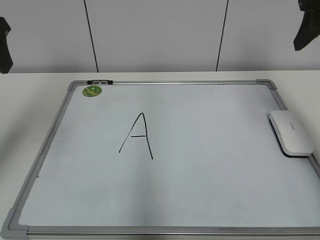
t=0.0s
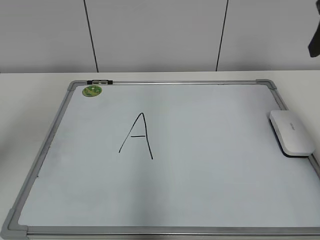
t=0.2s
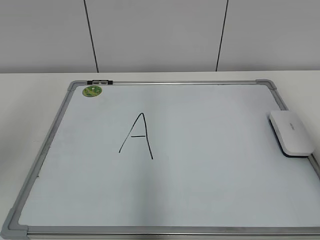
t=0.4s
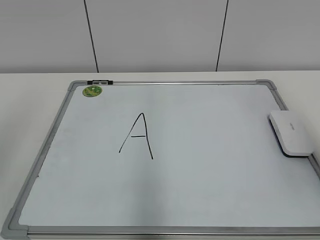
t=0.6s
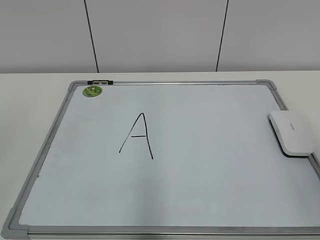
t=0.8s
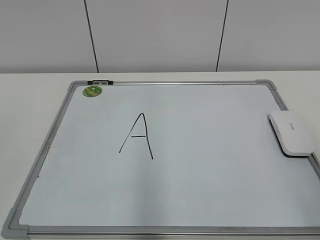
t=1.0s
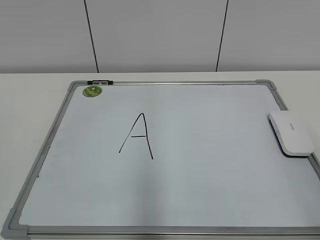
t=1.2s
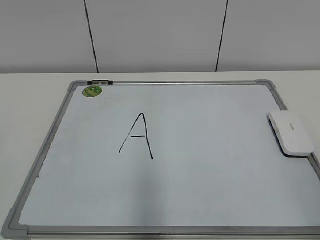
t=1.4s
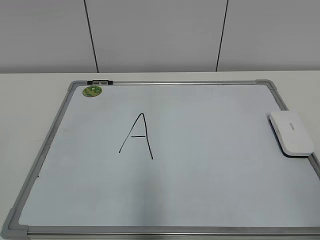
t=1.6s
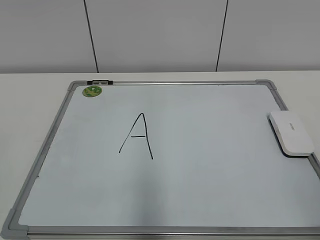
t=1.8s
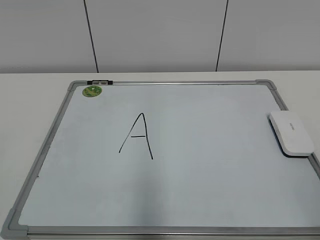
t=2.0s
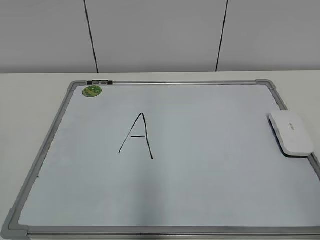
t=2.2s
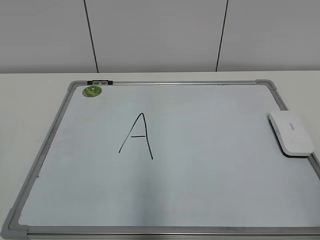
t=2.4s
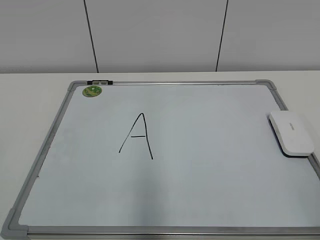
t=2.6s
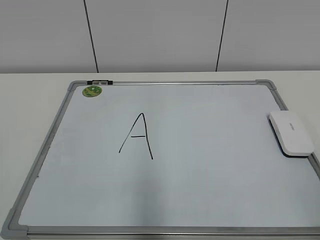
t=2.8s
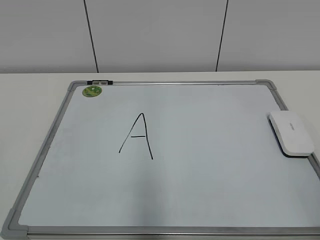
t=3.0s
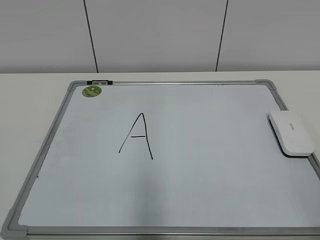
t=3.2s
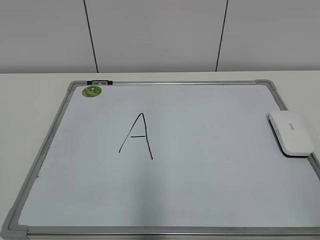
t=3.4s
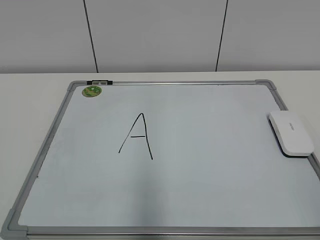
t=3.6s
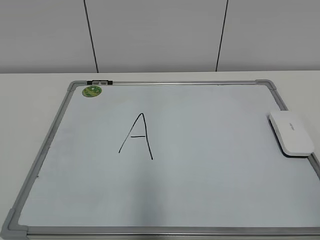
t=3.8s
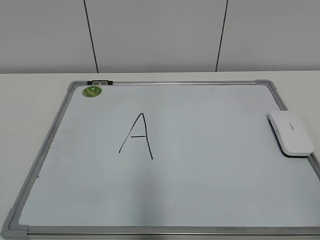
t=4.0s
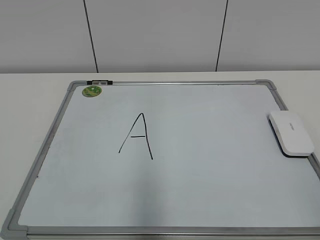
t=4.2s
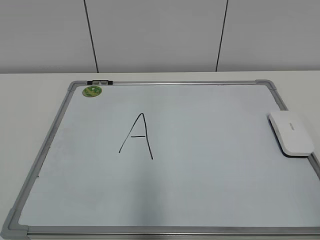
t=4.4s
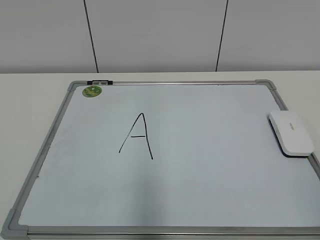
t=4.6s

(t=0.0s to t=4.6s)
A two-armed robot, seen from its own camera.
Task of the whole recording: pick up the eraser on the blackboard and erase the letter "a".
t=0.0s - t=1.6s: The grippers both shift backward by roughly 30 cm.
t=1.6s - t=3.0s: The two grippers keep their place.

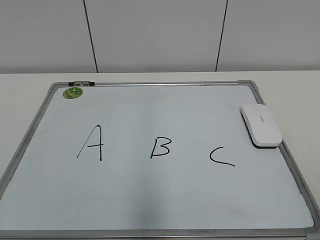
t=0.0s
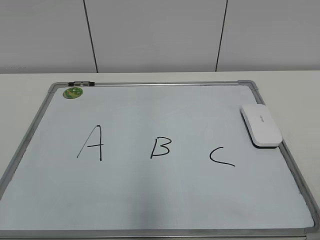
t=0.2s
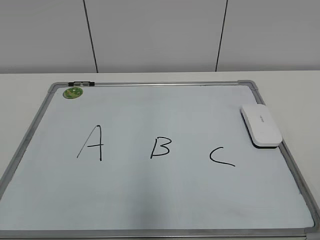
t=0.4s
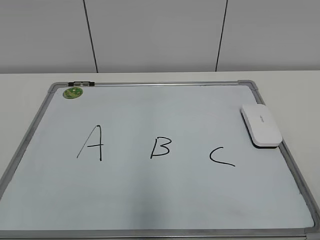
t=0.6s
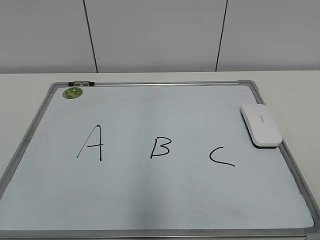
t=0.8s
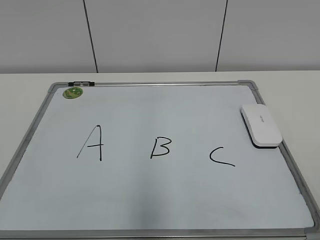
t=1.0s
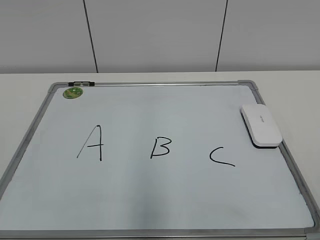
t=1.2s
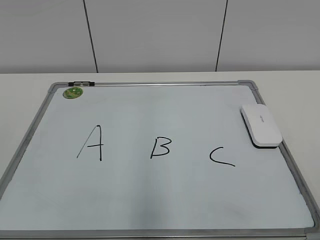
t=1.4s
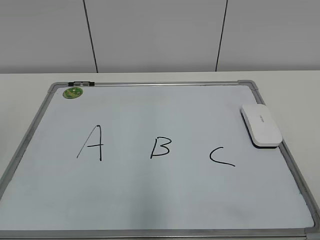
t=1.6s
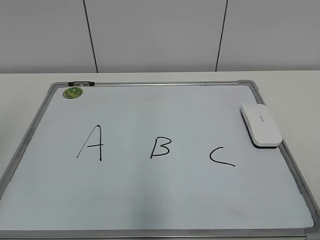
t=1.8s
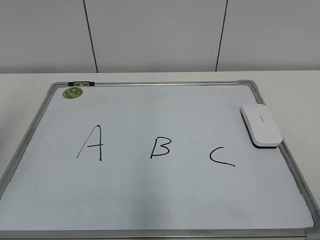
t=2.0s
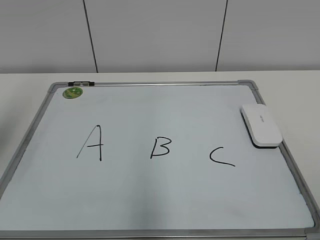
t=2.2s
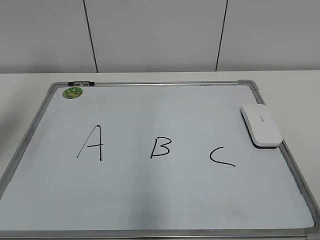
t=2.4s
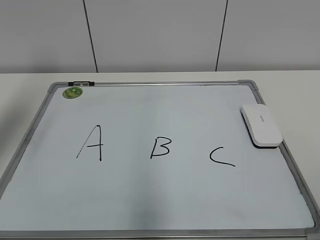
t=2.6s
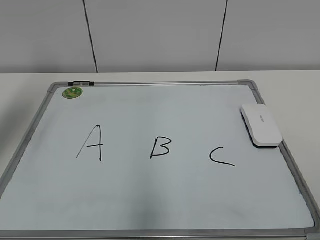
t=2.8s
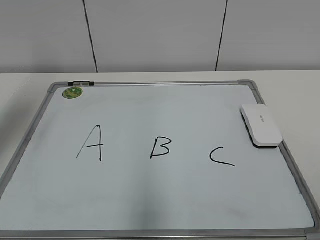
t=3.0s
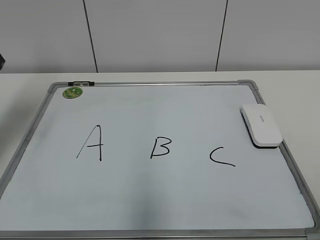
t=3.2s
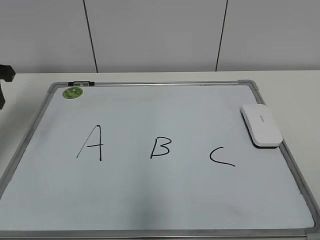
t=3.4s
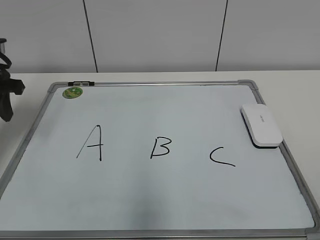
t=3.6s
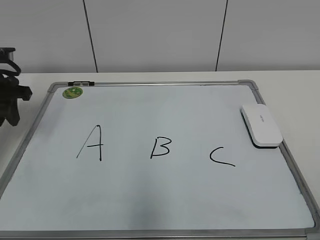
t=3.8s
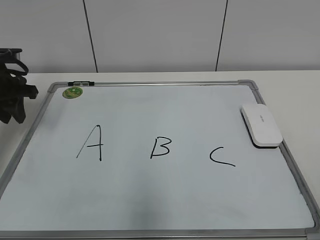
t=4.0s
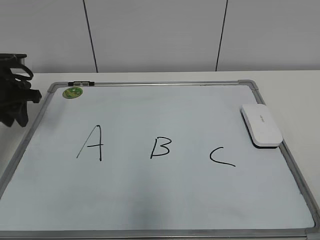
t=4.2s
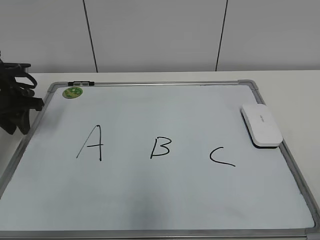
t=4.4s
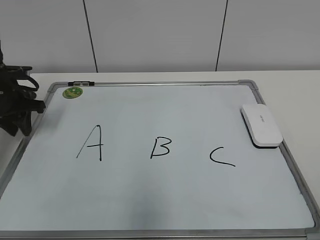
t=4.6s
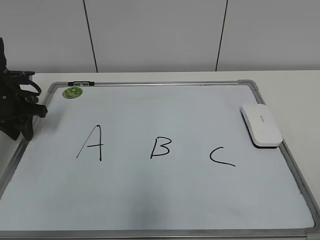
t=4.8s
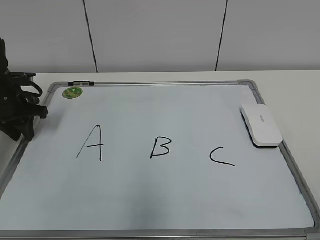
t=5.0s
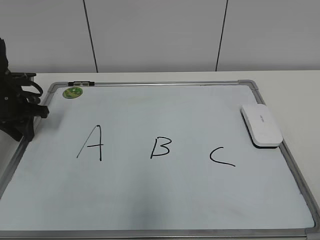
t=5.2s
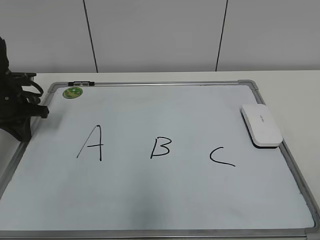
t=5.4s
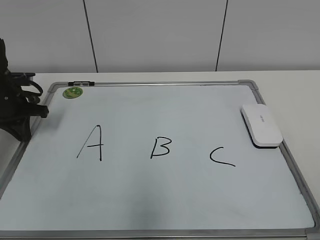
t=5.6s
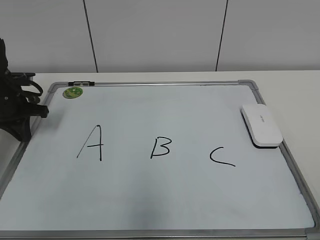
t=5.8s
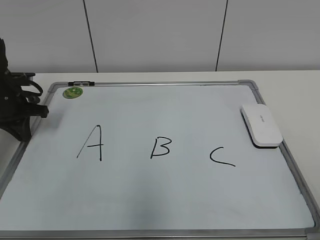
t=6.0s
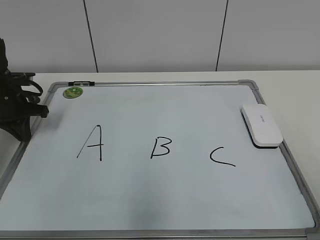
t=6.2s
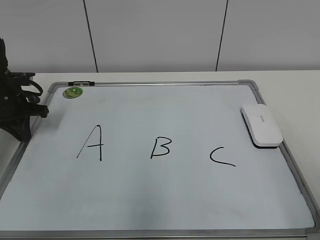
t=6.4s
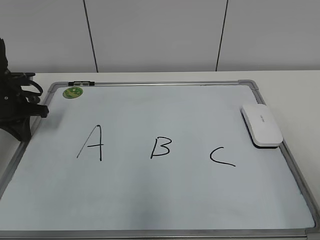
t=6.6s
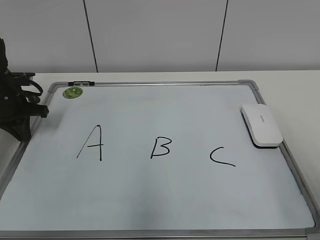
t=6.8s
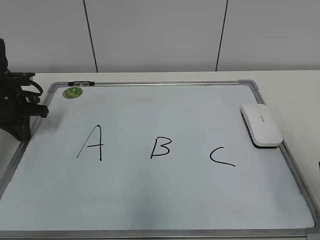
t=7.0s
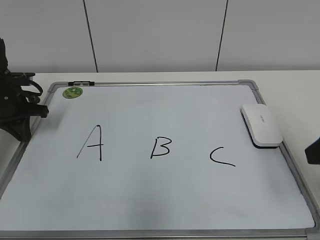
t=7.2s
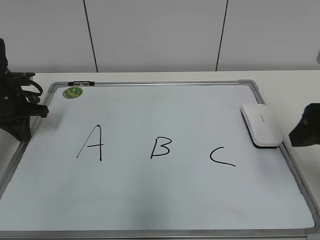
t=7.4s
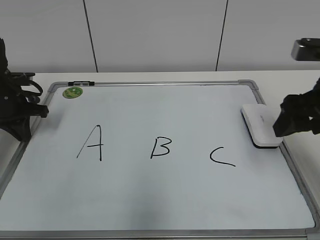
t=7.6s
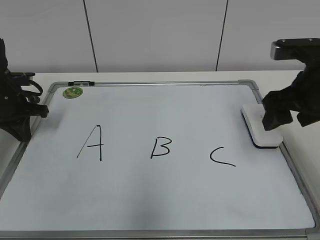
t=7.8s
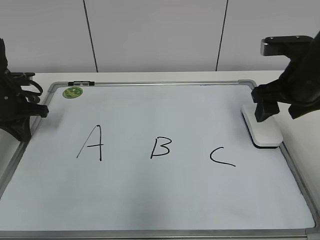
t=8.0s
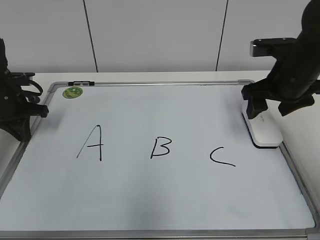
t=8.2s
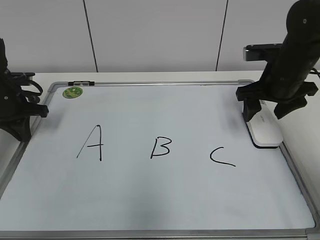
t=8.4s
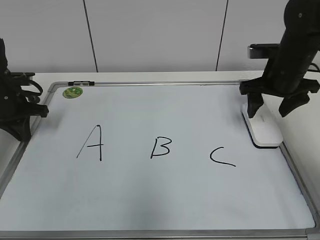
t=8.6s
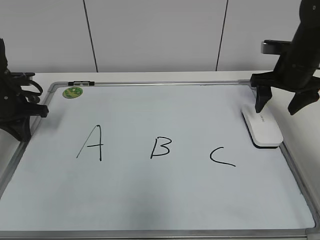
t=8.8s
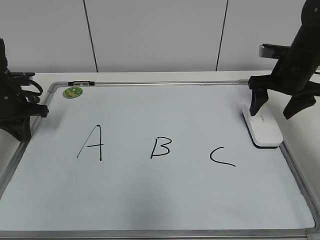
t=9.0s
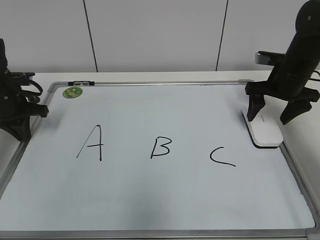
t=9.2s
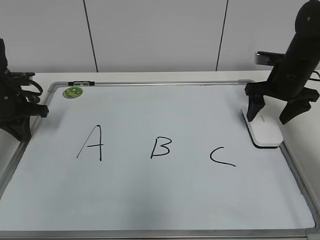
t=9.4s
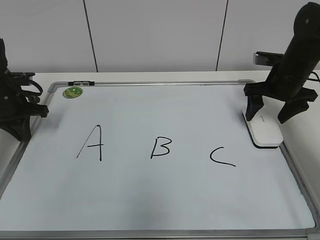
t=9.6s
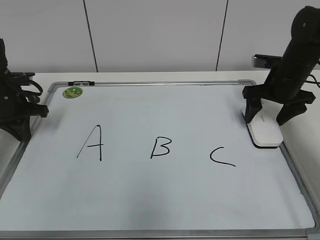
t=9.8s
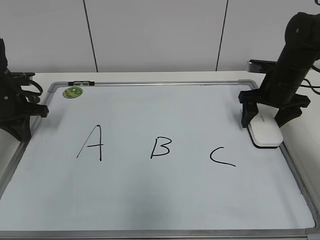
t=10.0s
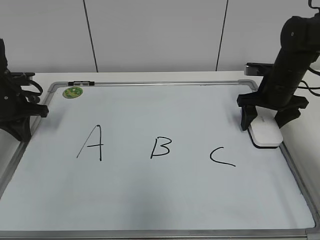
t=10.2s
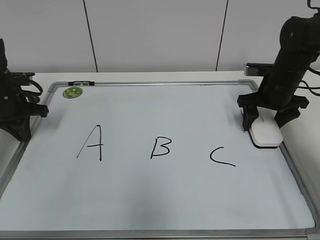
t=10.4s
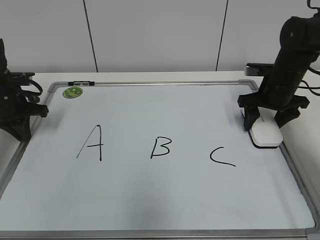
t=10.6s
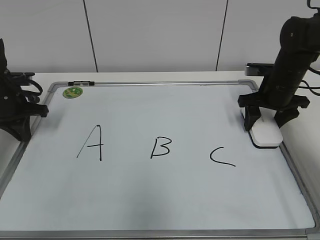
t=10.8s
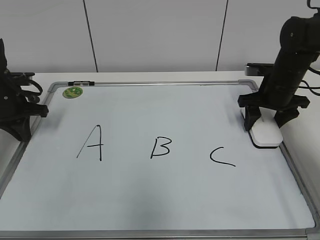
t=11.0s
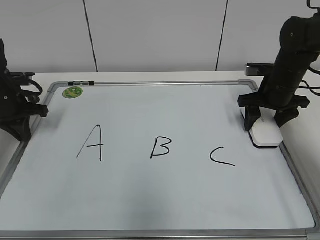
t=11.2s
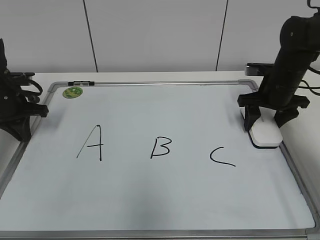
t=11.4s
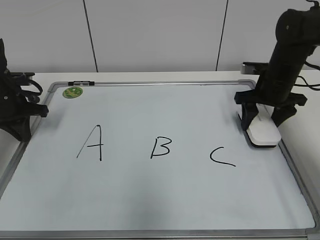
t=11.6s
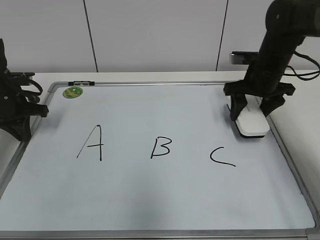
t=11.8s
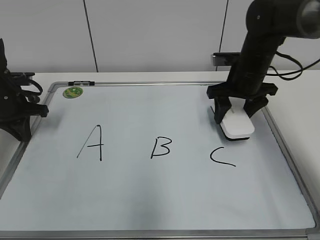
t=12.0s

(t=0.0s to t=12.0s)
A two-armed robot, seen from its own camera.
Task of the whole recording: pick up the eraser on the blackboard and erase the letter "B".
Step, t=0.0s - t=5.4s: Hold the drawing board steady with your left hand.
Step, t=5.6s - t=11.2s: Grab the eraser with your right hand.
t=1.6s - t=3.0s: The left gripper goes about 25 cm forward.
t=3.0s - t=4.4s: The left gripper shifts some 15 cm downward and forward.
t=4.4s - t=6.0s: The left gripper closes up.
t=6.0s - t=7.6s: The right gripper travels forward by some 25 cm.
t=7.6s - t=9.0s: The right gripper goes about 15 cm forward, and opens.
t=9.0s - t=10.4s: The right gripper closes up.
t=10.4s - t=12.0s: The right gripper heads to the left, covering approximately 5 cm, and closes.

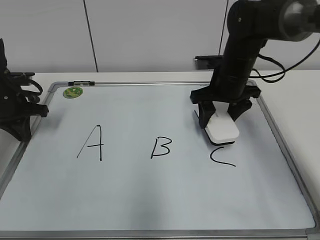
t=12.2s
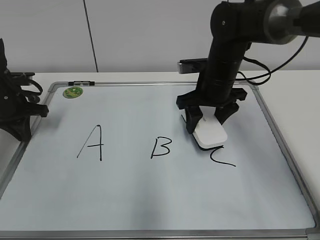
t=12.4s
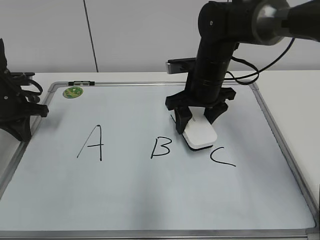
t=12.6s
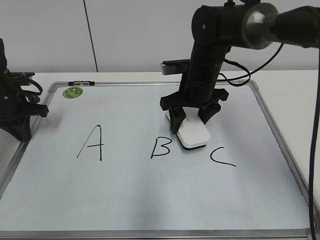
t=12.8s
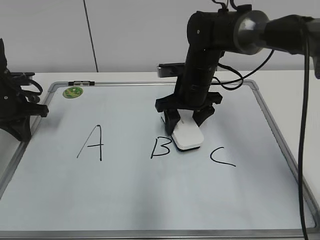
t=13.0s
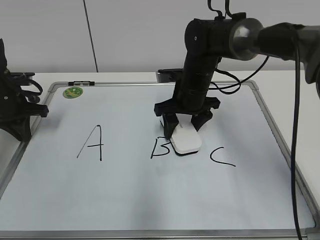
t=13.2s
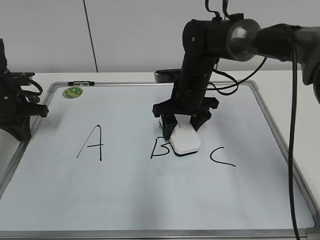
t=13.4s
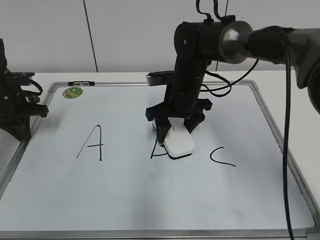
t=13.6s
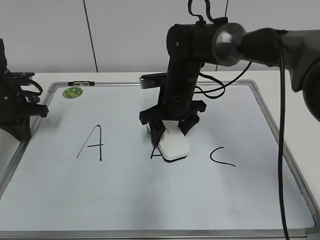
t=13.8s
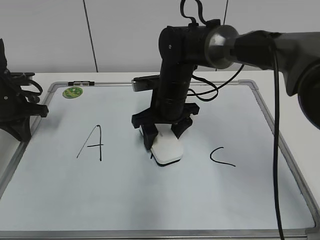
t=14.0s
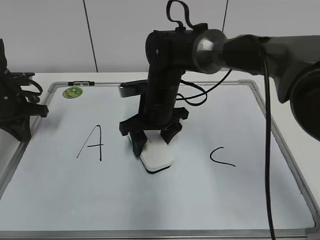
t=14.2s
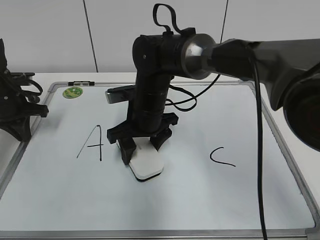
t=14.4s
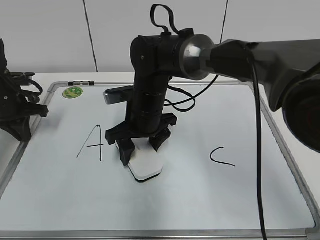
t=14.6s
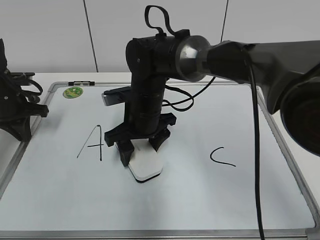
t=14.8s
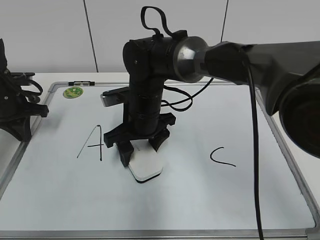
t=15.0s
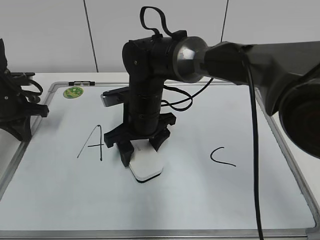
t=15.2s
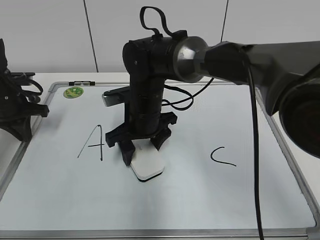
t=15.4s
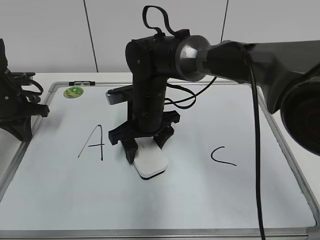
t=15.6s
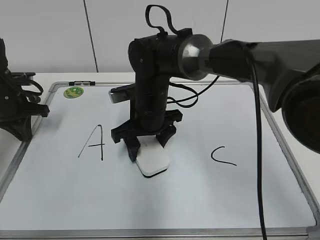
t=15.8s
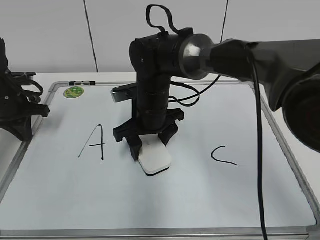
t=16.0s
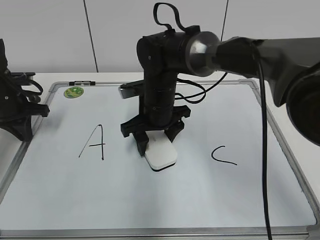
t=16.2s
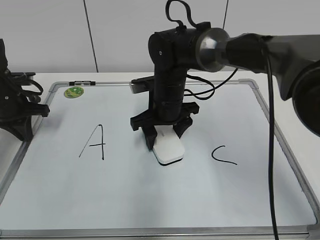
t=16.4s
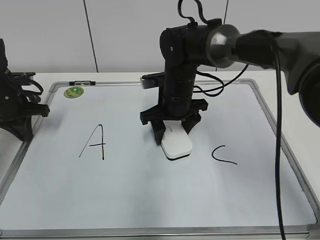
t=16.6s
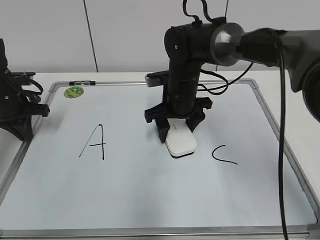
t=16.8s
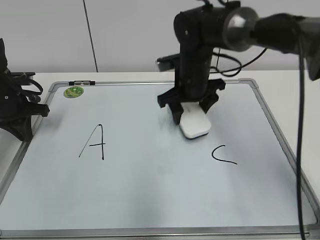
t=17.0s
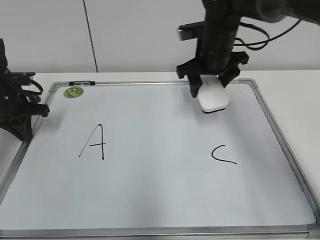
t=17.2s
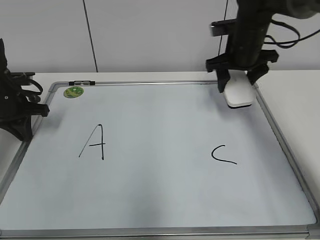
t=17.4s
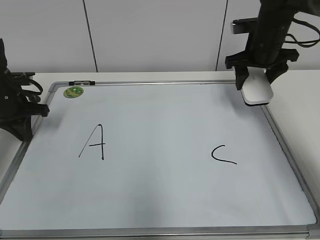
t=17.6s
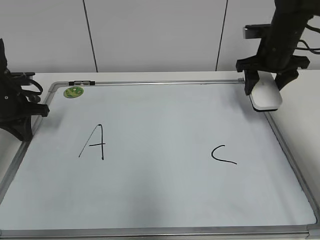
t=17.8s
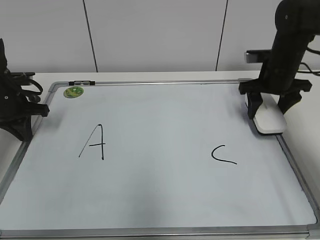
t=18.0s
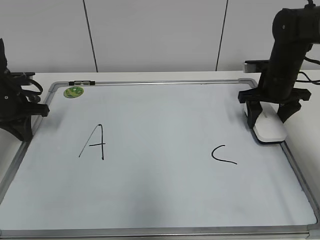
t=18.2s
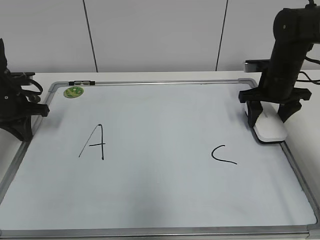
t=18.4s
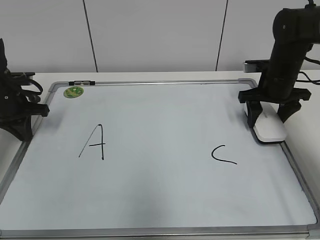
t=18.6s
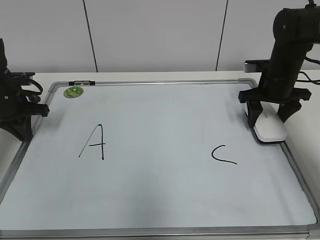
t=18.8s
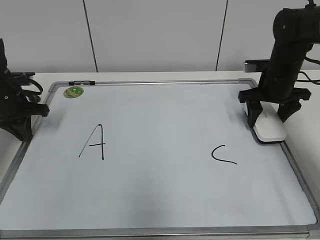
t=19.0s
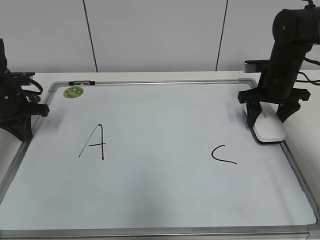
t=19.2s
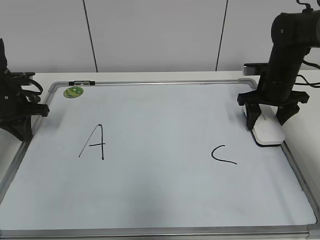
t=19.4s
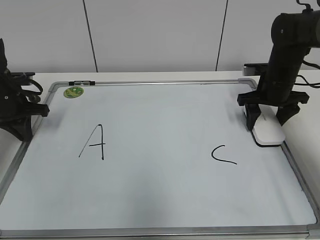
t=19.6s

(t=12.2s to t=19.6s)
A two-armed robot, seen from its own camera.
Task of the whole recording: pick up the eraser on the blackboard and erase the letter "B".
Step, t=12.2s - t=16.6s: Erase the letter B with your right hand.
t=12.2s - t=13.6s: The right gripper is displaced to the left by about 10 cm.
t=13.6s - t=15.2s: The right gripper goes approximately 10 cm to the left.
t=15.2s - t=16.6s: The right gripper heads to the right, covering roughly 5 cm.
t=16.6s - t=18.2s: The right gripper moves to the right, roughly 20 cm.
t=18.2s - t=19.6s: The two grippers keep their place.
